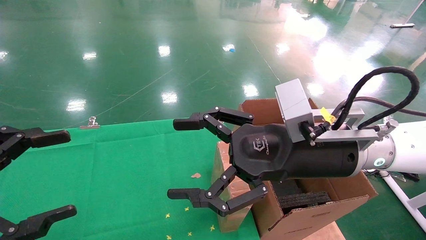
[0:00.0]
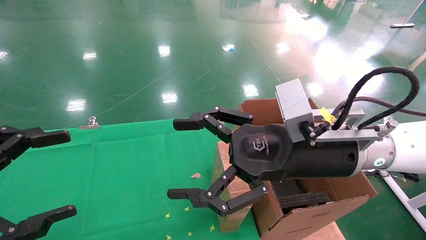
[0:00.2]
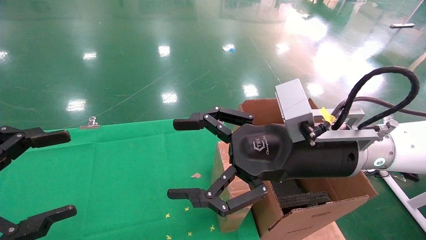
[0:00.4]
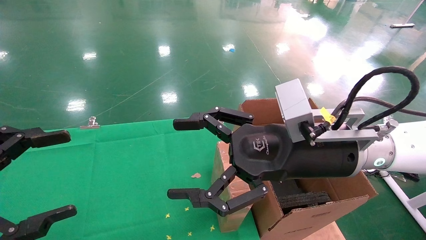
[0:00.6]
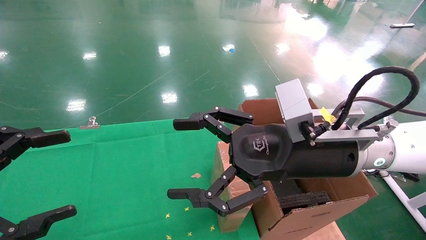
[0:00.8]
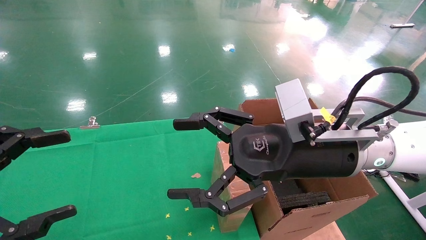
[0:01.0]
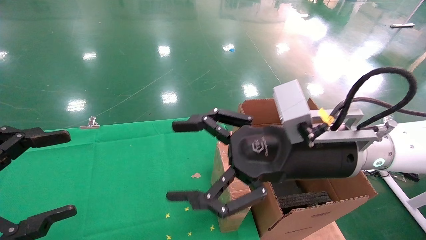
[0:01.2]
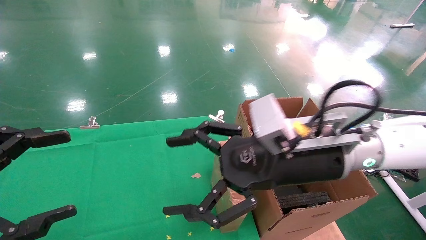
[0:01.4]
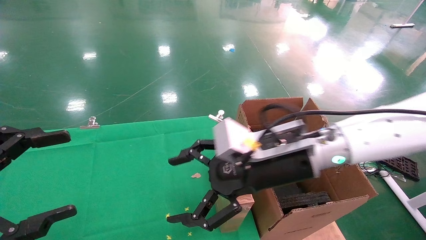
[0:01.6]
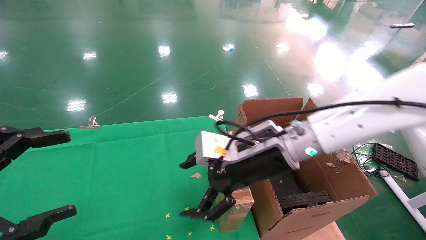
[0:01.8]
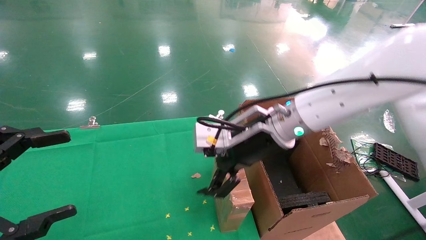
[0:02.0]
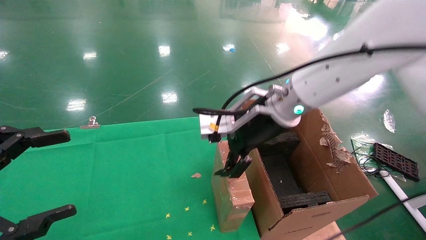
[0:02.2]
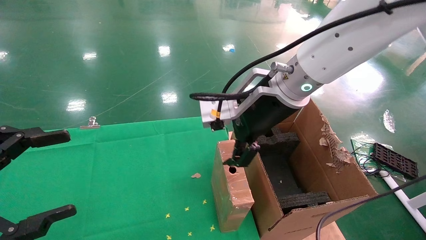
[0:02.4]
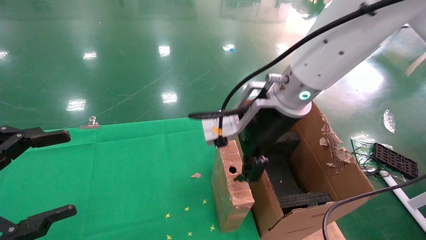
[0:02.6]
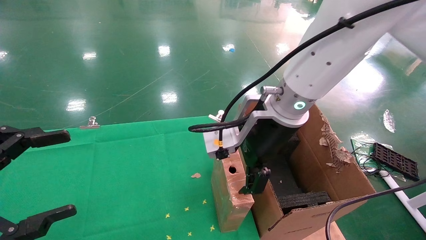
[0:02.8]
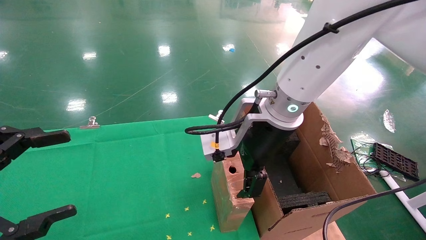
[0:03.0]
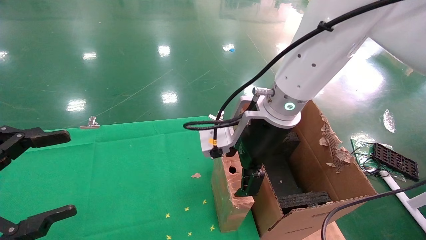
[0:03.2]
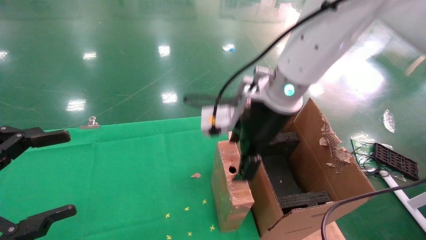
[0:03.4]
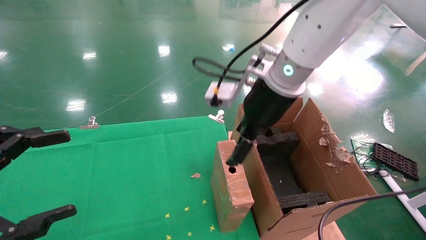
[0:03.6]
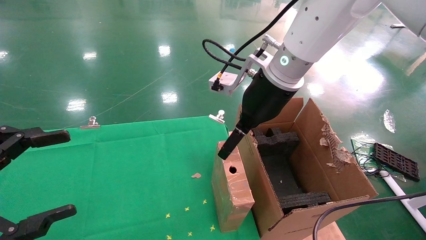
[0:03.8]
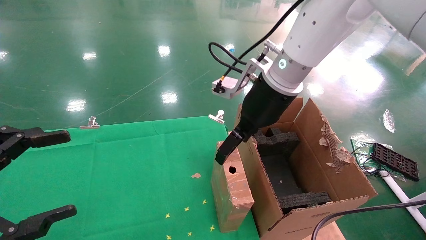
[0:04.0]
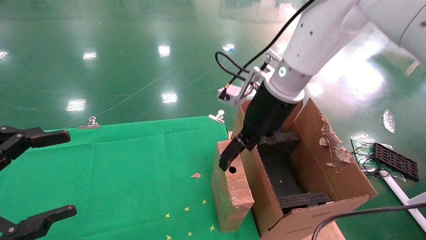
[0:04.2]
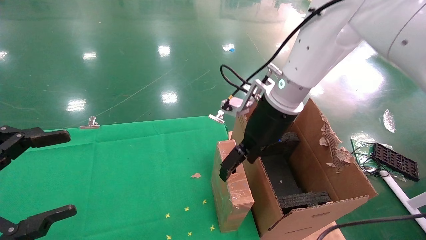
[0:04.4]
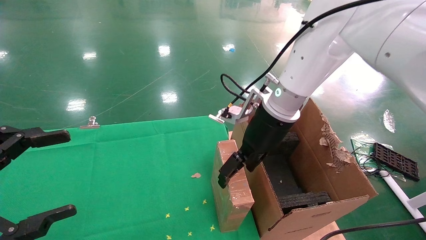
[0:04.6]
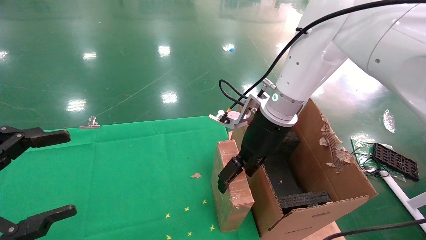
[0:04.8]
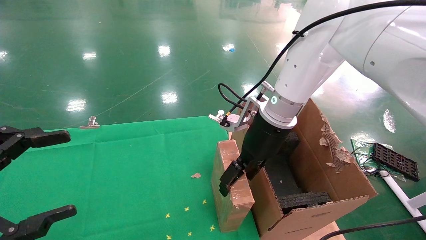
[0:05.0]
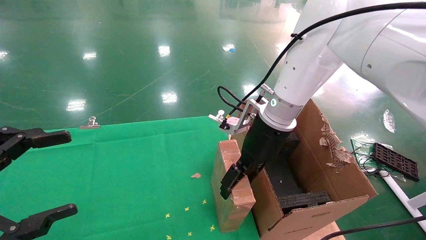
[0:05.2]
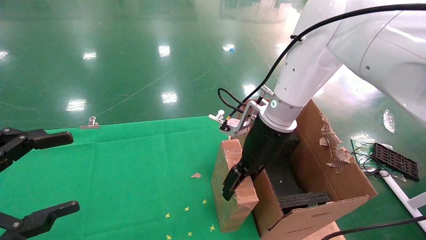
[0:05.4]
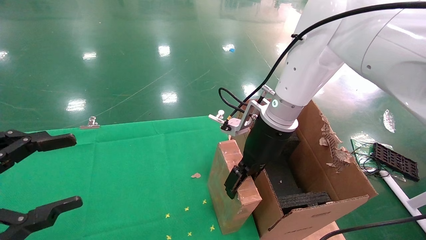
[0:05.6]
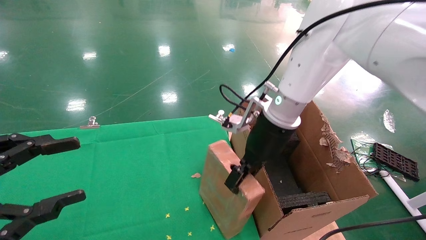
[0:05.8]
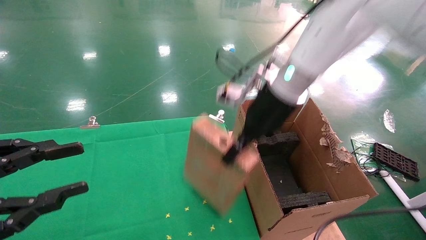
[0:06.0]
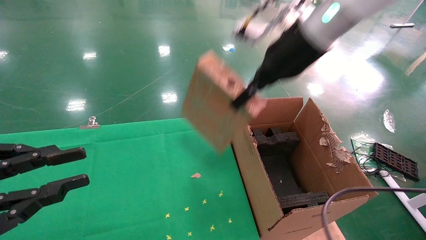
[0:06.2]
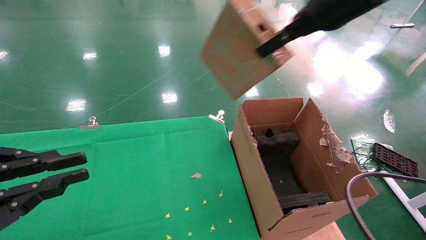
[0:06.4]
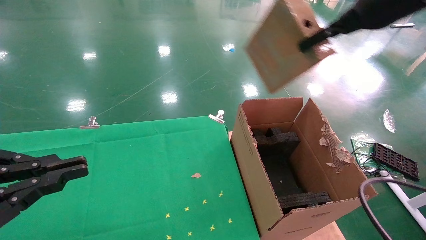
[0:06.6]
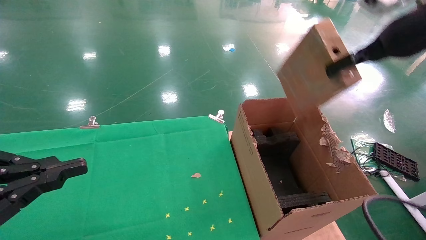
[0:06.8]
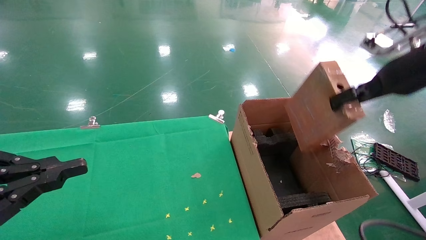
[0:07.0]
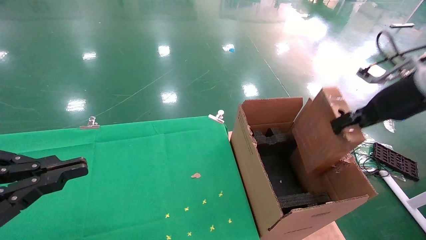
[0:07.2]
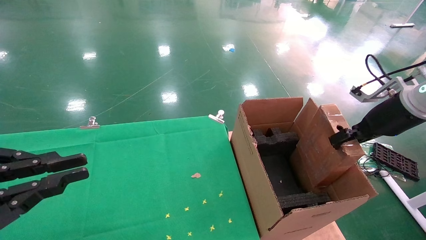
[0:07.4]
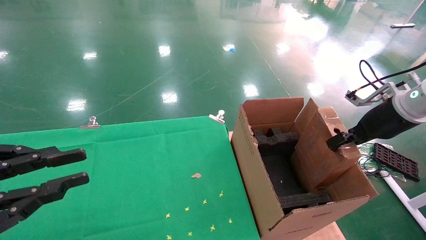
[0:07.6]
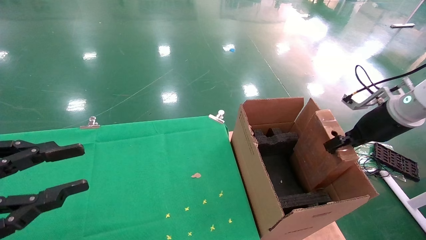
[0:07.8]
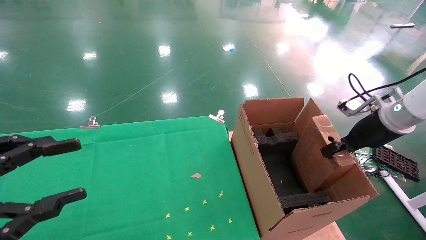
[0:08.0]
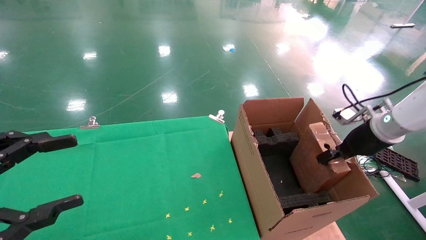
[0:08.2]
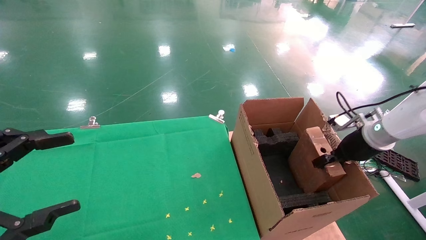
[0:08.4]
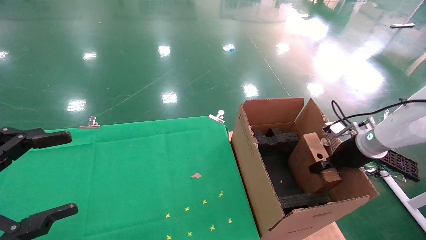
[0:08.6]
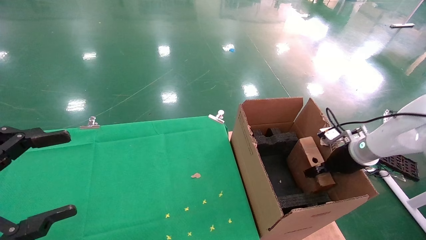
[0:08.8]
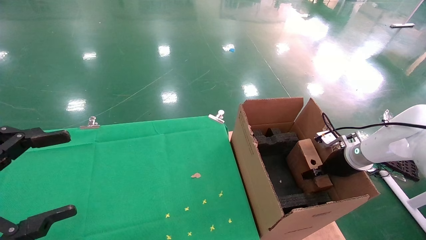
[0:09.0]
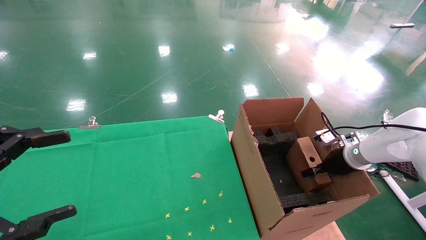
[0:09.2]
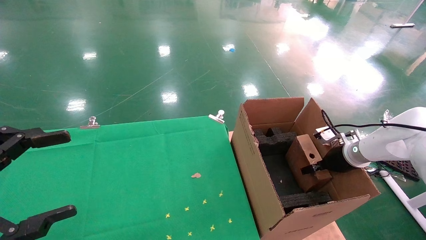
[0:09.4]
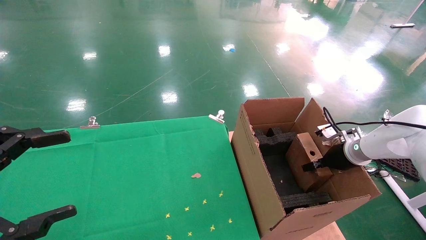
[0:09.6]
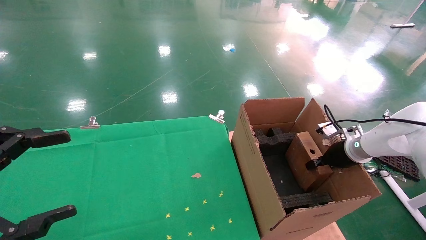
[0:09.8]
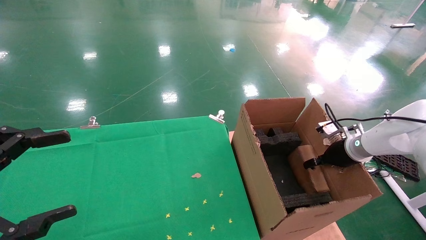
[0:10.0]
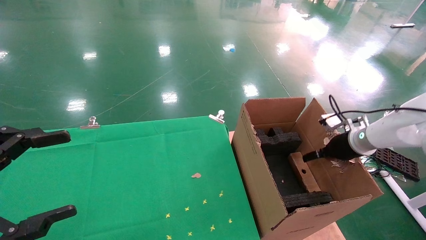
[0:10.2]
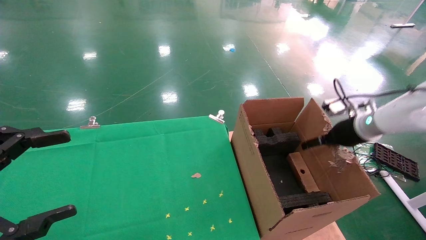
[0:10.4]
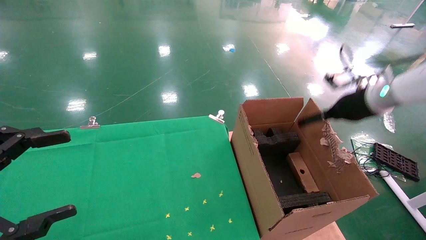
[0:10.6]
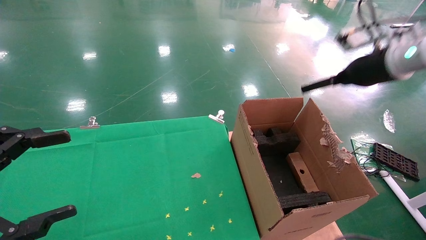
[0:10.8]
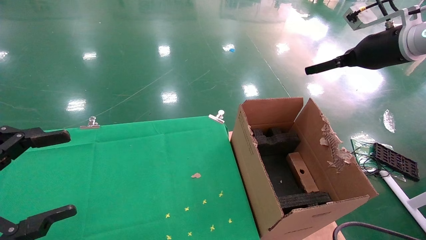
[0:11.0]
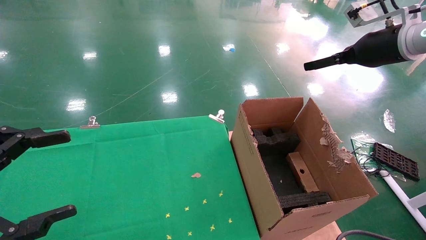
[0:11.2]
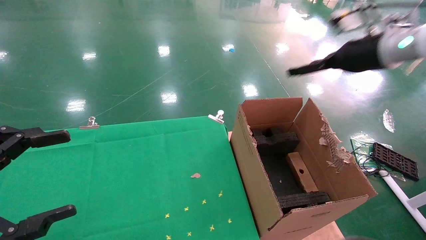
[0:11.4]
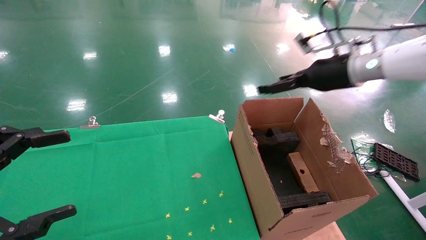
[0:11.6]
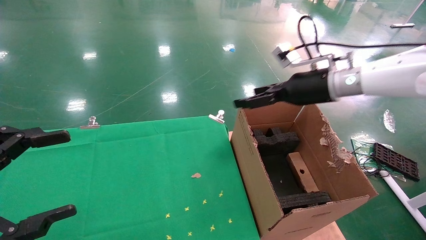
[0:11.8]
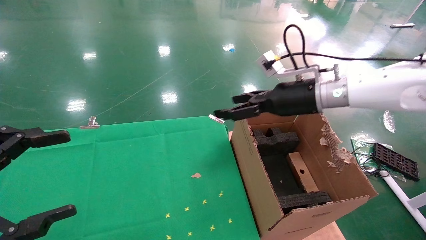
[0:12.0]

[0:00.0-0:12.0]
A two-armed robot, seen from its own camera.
Task of the whole recording: using a robotic arm to pick up a cardboard box and palace it the carton.
Step, 0:01.2 to 0:05.8: Pick up the mouse and the power cord paper box.
Step, 0:06.0 to 0:10.8: Place the mouse and the power cord paper box into the container.
0:00.0 to 0:01.6: The right gripper moves about 5 cm.
0:01.6 to 0:03.0: The right gripper travels upward by roughly 5 cm.
0:03.0 to 0:04.4: The right gripper moves approximately 5 cm.
0:04.4 to 0:06.0: The right gripper closes up. The left gripper closes up.
0:06.0 to 0:07.6: The right gripper goes about 25 cm to the right. The left gripper closes.
0:07.6 to 0:09.0: The right gripper is displaced downward and forward by some 15 cm. Meanwhile the left gripper opens its fingers.
0:09.0 to 0:10.4: The right gripper moves upward, about 10 cm, and opens up.
0:10.4 to 0:12.0: The right gripper is displaced to the left and upward by roughly 20 cm.

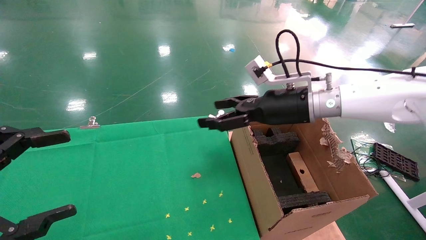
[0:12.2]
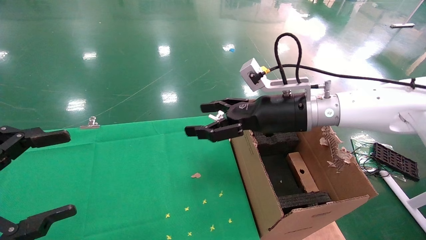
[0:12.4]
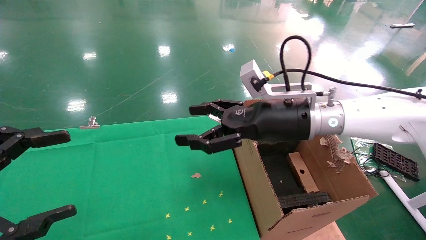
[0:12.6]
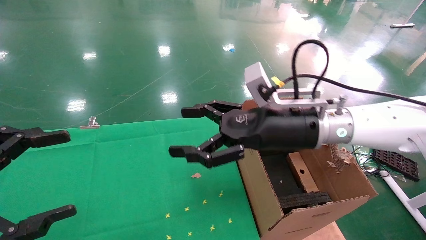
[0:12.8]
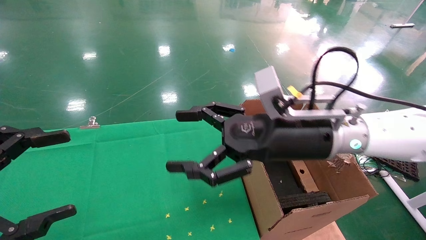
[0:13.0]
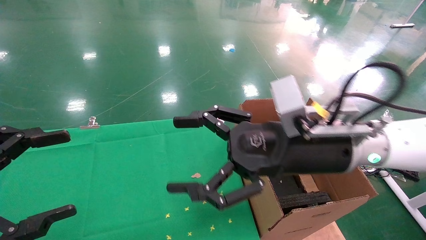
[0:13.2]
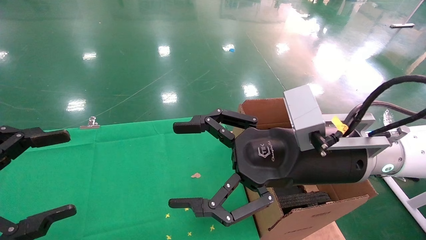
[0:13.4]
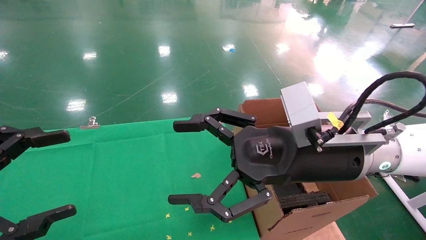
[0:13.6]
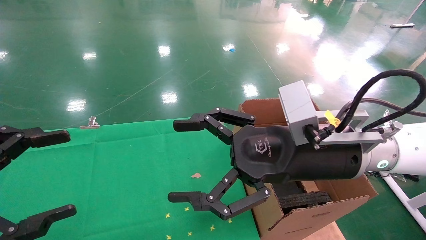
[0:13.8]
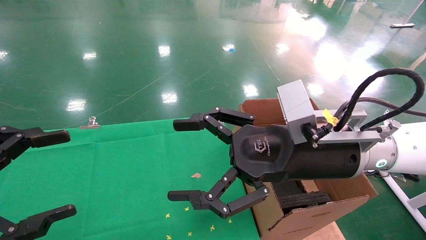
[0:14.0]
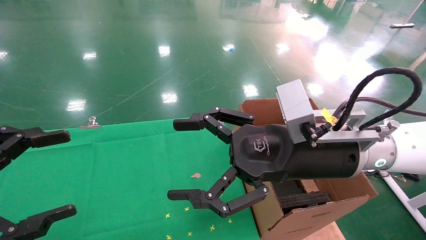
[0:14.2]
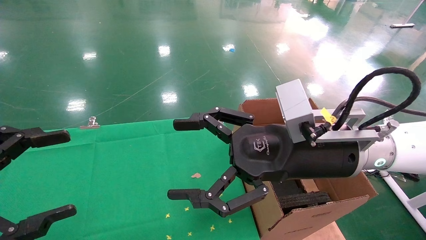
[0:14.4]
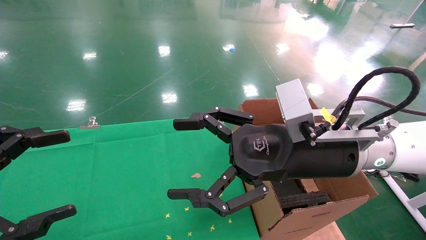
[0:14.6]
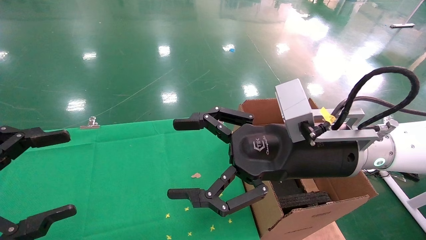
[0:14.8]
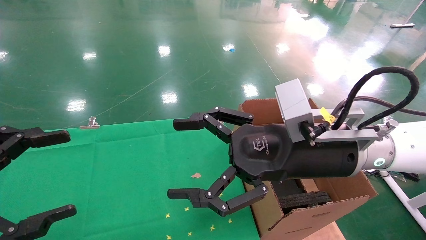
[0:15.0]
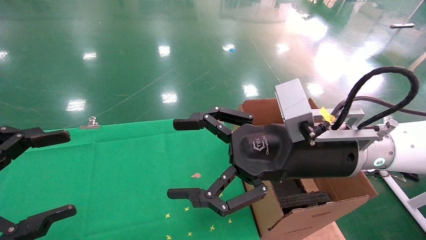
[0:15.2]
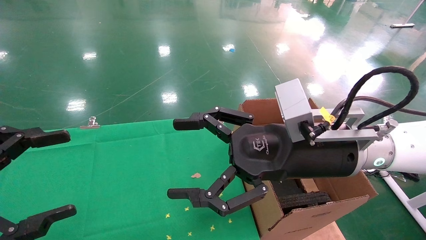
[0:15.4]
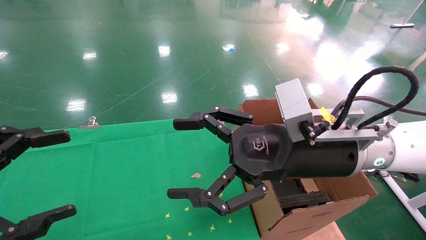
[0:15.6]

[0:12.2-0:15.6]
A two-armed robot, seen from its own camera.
Task of the whole recording: using a robotic arm to pick up a cardboard box and palace it the carton.
0:12.2 to 0:13.8: The right gripper goes roughly 15 cm backward.
0:13.8 to 0:15.6: Neither gripper changes place.

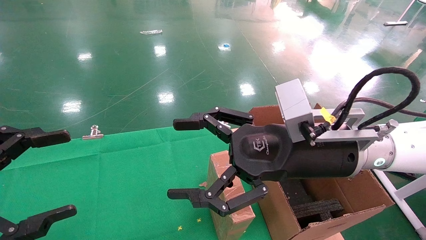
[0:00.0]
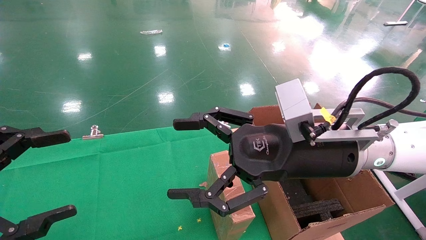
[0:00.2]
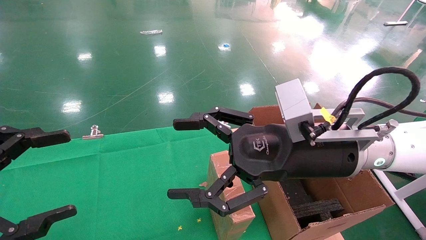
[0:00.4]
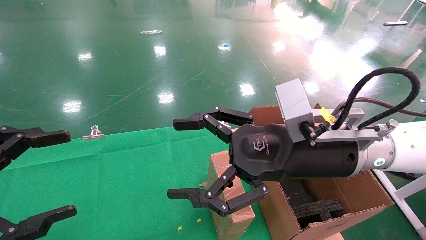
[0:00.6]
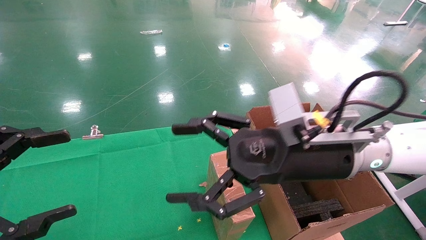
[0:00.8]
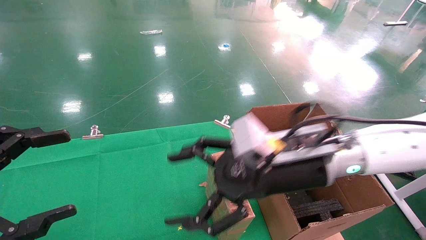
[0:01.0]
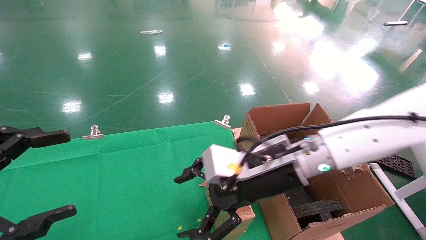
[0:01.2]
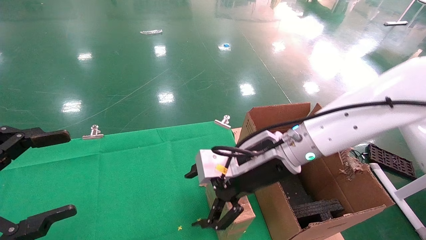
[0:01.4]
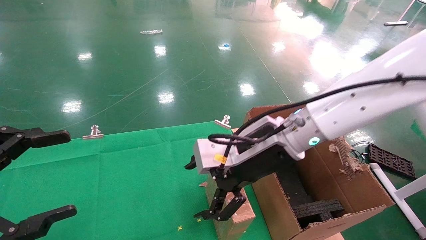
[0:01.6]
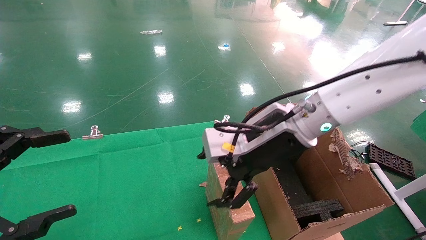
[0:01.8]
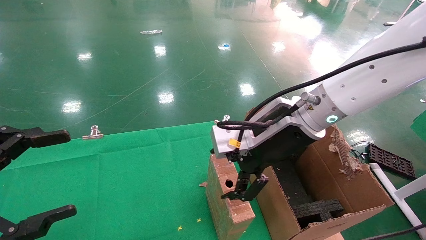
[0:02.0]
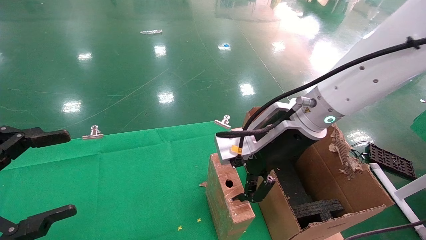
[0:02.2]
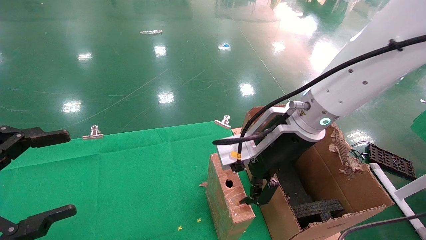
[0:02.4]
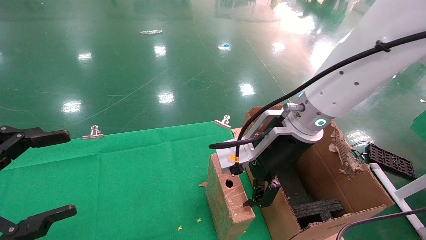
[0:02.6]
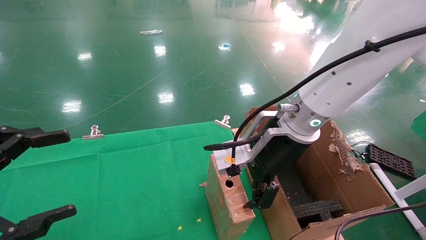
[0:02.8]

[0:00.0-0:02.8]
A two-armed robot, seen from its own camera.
Task of the whole recording: using a robotic arm to pick up a cardboard box and palace it the carton.
0:00.0 to 0:01.4: The right gripper goes some 5 cm forward.
0:01.4 to 0:02.8: The right gripper ends up approximately 5 cm from where it was.
